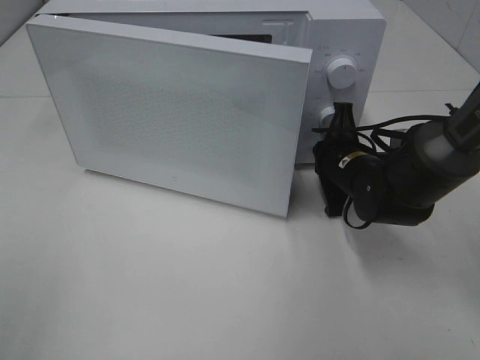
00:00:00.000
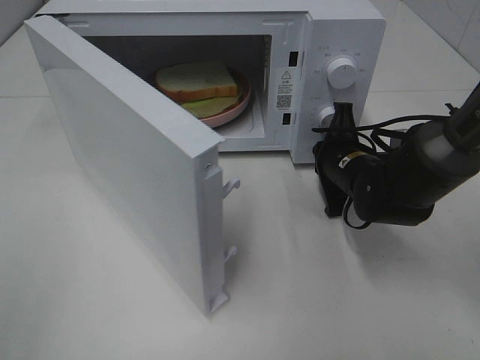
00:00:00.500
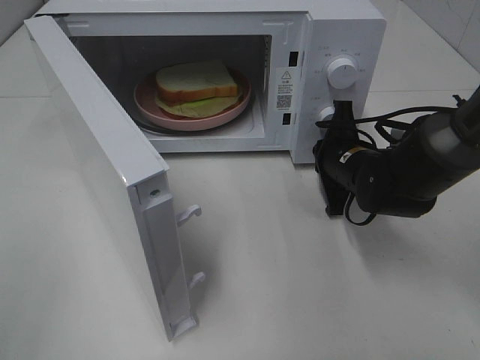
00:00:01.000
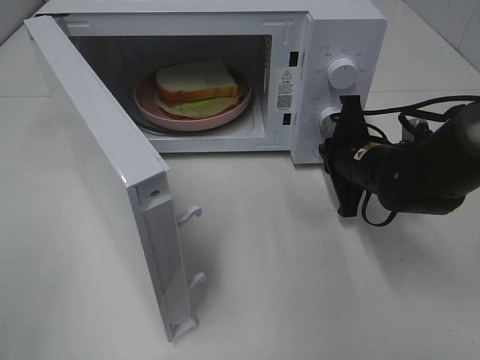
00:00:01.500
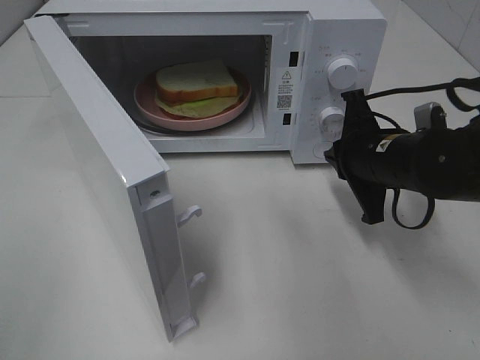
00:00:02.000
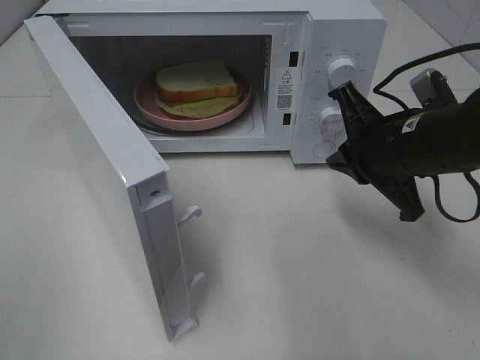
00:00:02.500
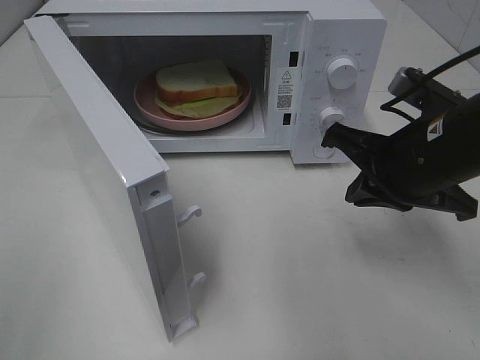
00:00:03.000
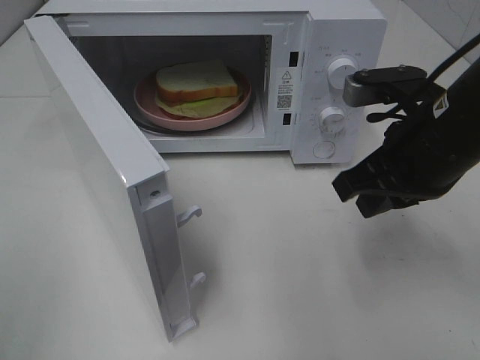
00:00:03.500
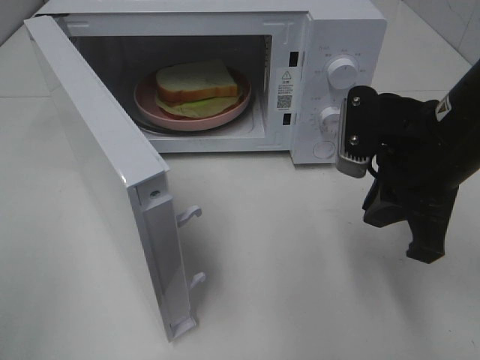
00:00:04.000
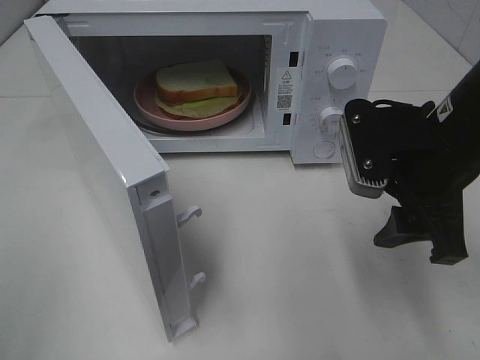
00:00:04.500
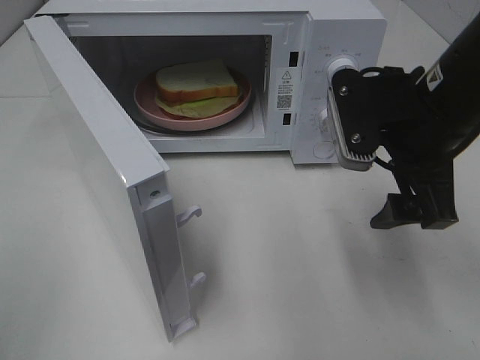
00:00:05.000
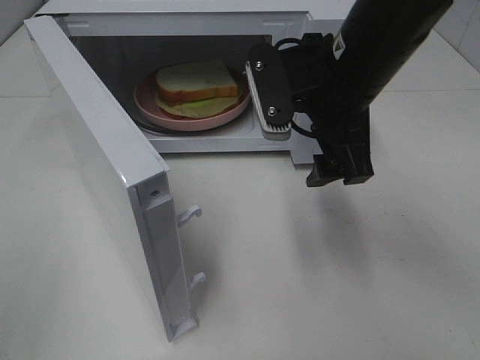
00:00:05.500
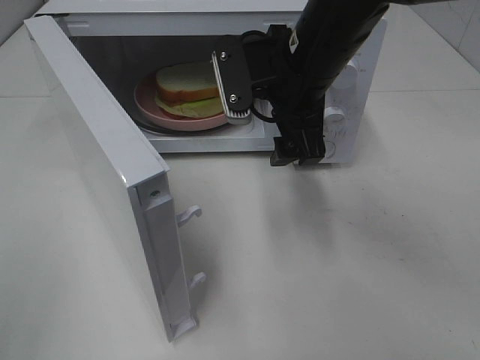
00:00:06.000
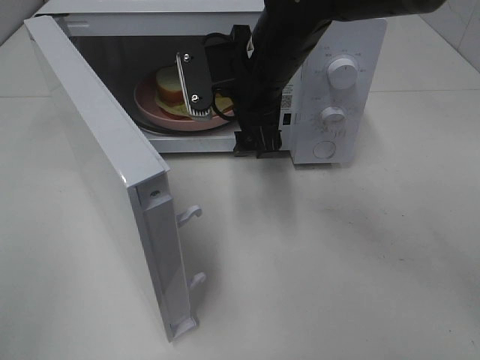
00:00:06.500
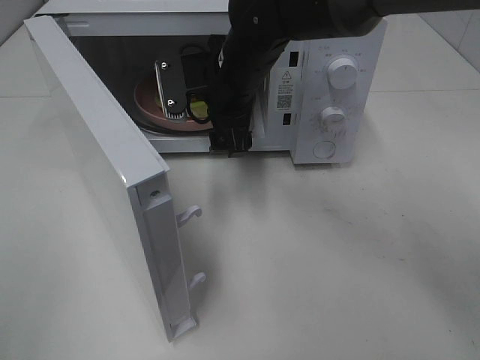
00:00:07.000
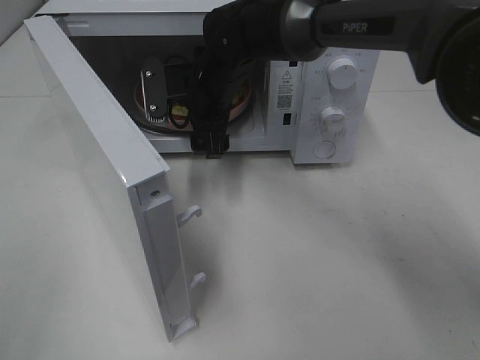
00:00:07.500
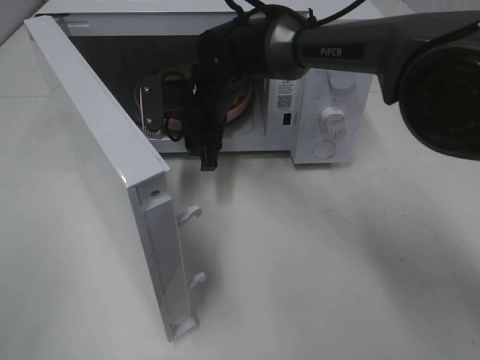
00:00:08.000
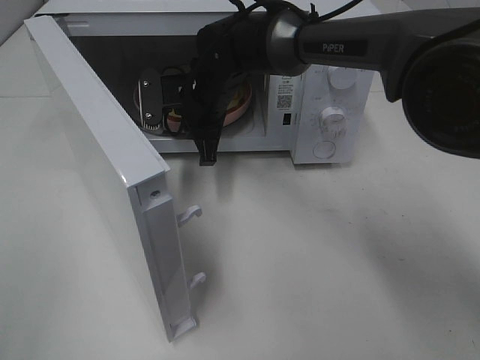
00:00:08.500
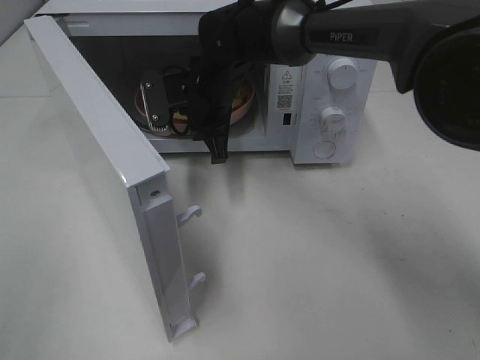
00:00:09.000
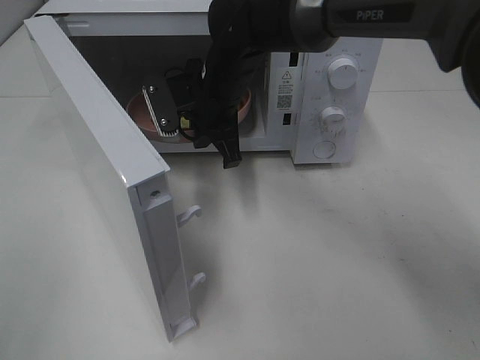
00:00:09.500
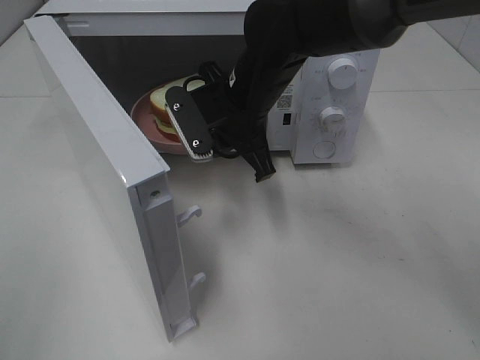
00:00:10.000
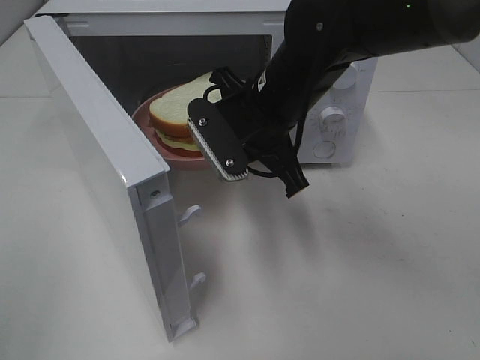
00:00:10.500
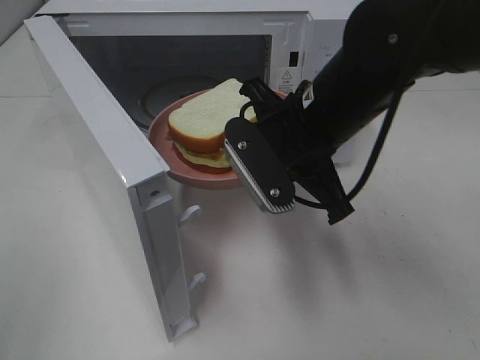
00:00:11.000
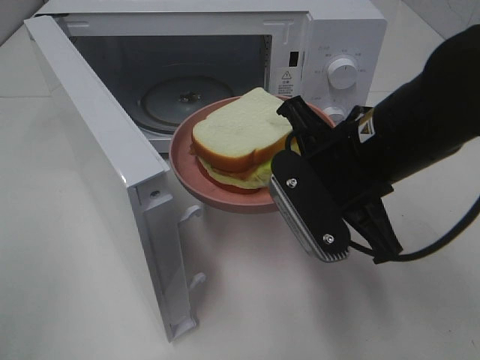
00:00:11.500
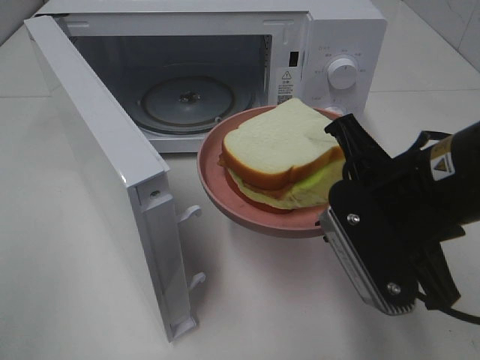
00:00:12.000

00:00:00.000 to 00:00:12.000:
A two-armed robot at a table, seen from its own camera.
Task of the whole recording: Heat Sandwich.
Step, 00:00:02.000 to 00:00:08.000: Right hand: grab the plate with the sandwich.
00:00:00.000 to 00:00:02.000: The right gripper shifts approximately 10 cm upward and backward.
00:00:02.000 to 00:00:04.000: The right gripper goes about 10 cm upward and backward.
00:00:04.000 to 00:00:06.000: The right gripper heads to the left and forward, covering approximately 15 cm, and opens.
00:00:06.000 to 00:00:08.000: The right gripper goes some 15 cm forward, downward and to the left, and closes.
00:00:08.000 to 00:00:10.000: The right gripper goes approximately 5 cm backward, and closes.
00:00:10.000 to 00:00:12.000: The right gripper travels backward and to the right by roughly 20 cm.

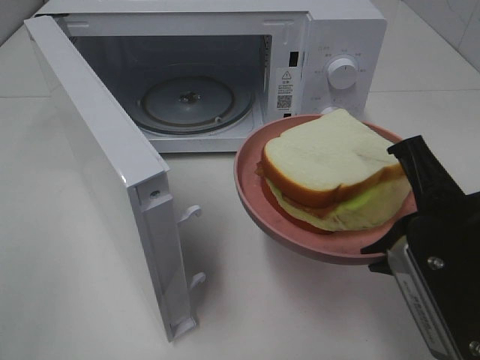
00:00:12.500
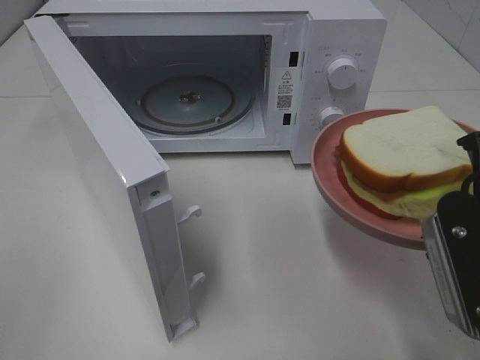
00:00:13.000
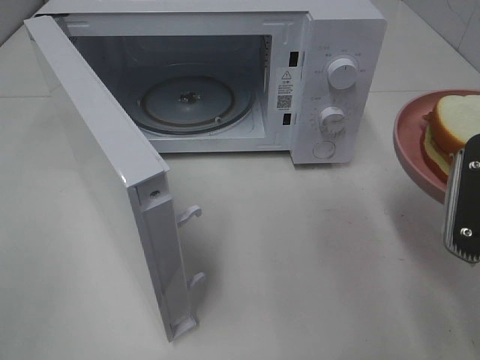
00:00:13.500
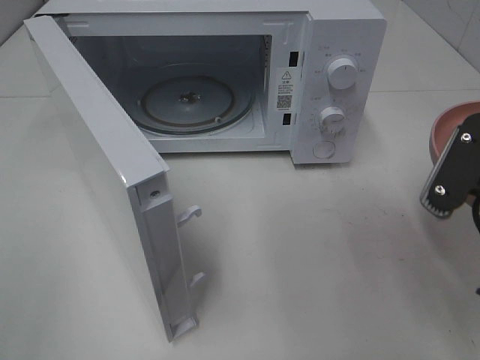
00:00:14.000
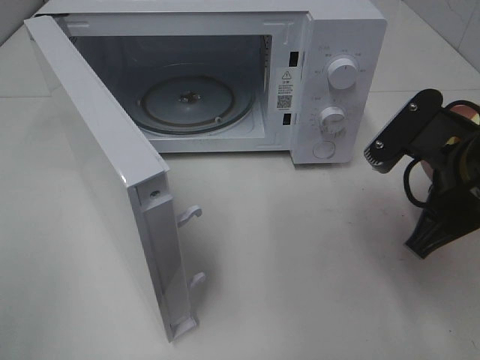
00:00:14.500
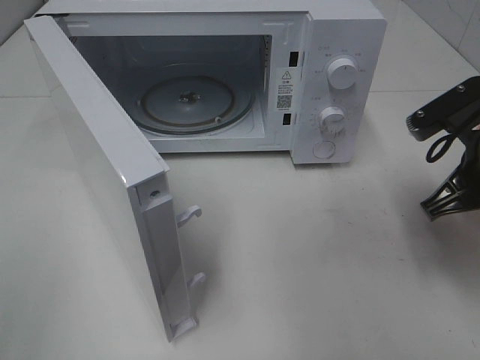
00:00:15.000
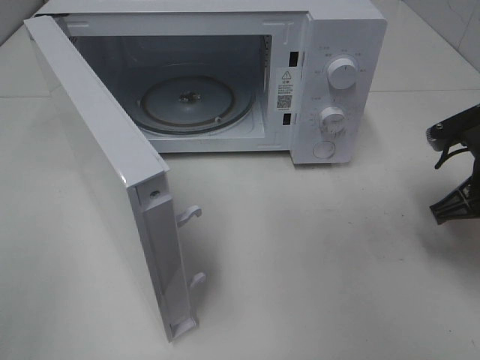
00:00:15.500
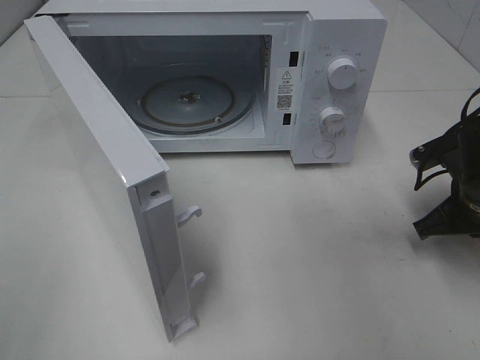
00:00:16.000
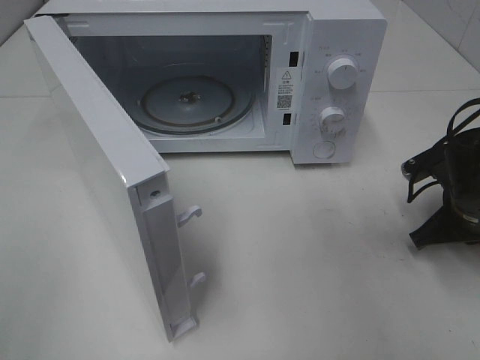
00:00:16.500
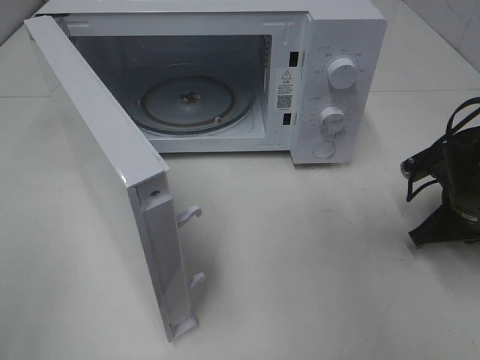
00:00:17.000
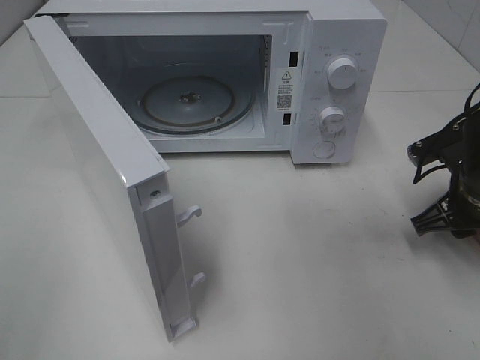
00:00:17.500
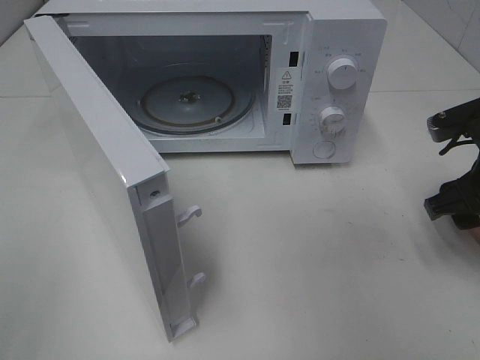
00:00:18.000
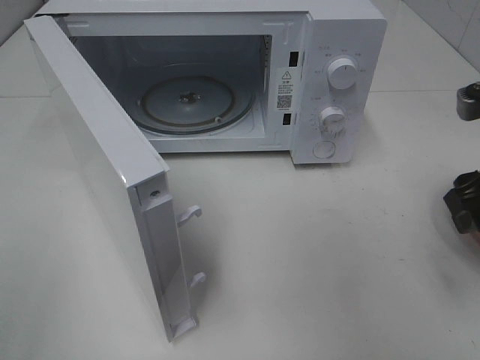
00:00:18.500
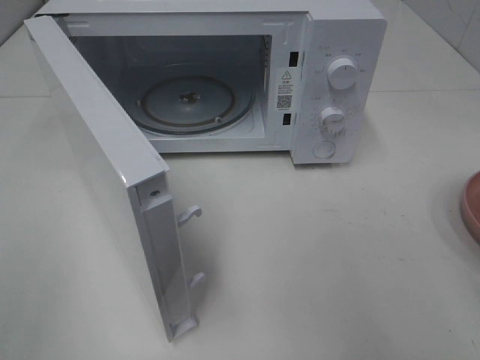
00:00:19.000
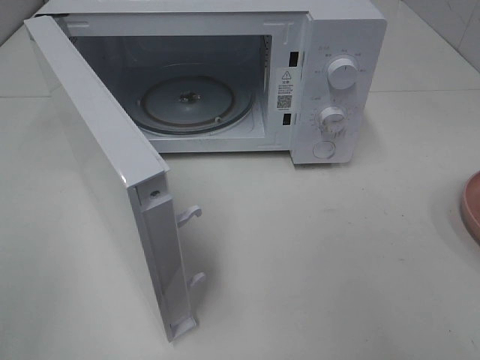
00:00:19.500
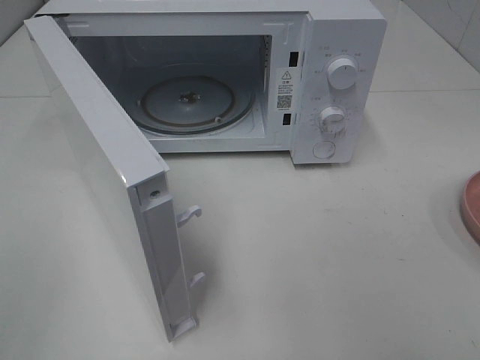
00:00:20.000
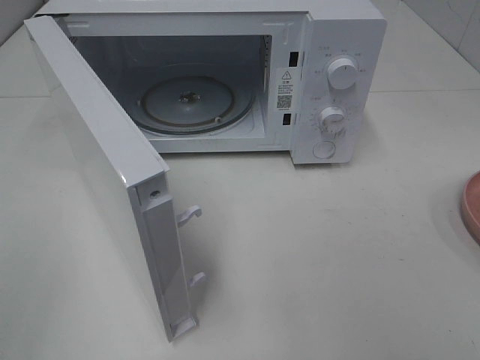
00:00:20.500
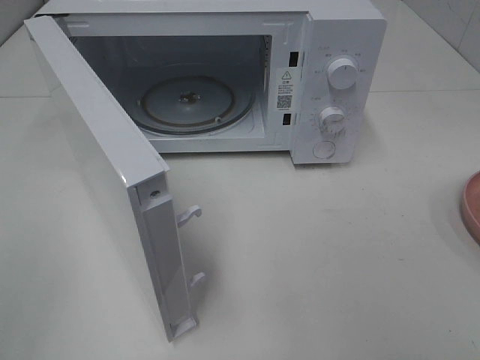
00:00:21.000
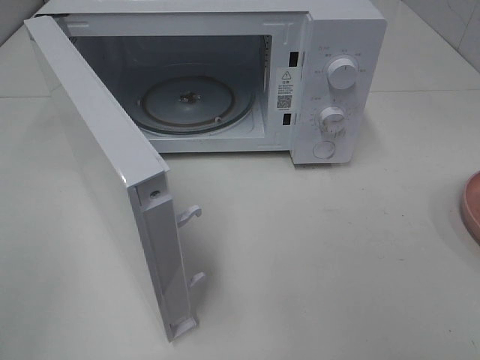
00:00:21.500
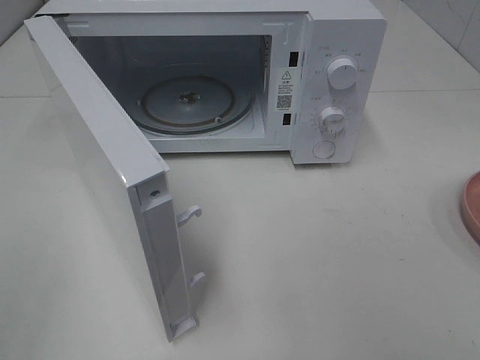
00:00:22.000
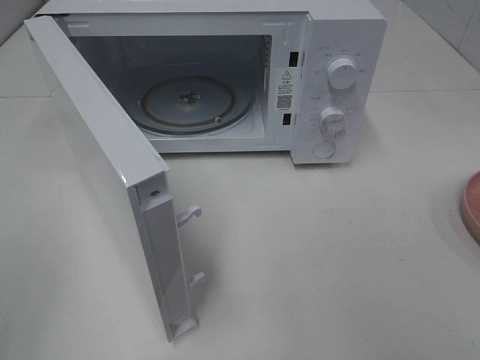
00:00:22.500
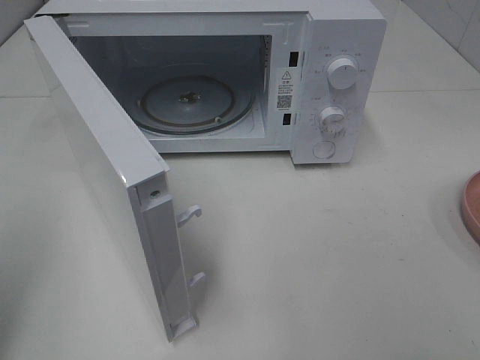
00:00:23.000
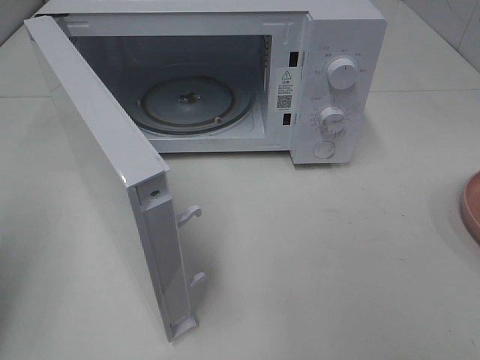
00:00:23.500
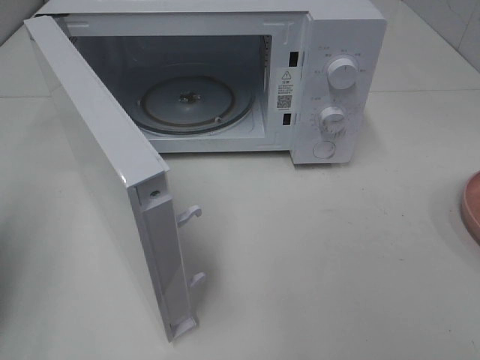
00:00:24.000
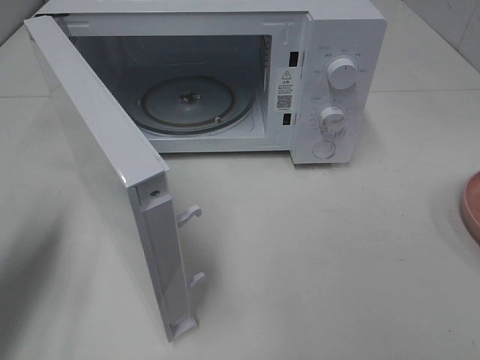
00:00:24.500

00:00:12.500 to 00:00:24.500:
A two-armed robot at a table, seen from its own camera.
Task of the whole recording: Heat Sandwich.
Step, 00:00:12.500 to 00:00:18.000: Right hand: place the plate on the table.
00:00:12.500 to 00:00:14.500: The right gripper moves forward, approximately 5 cm.
00:00:14.500 to 00:00:16.500: The right gripper travels downward, to the right and forward by about 15 cm.
00:00:16.500 to 00:00:18.500: The right gripper shifts about 15 cm upward and backward, and opens its fingers.
00:00:18.500 to 00:00:20.500: The right gripper is displaced backward by roughly 20 cm.
00:00:22.500 to 00:00:24.500: The left gripper is displaced forward and downward by roughly 20 cm, and closes up.

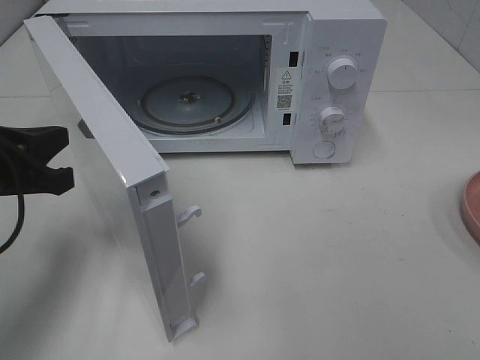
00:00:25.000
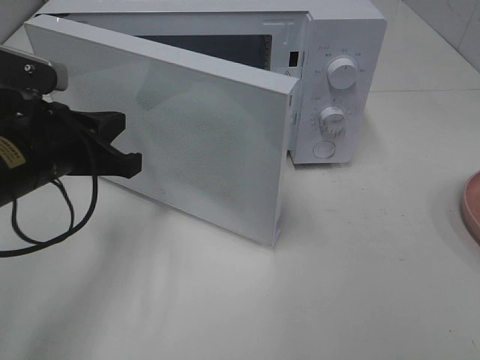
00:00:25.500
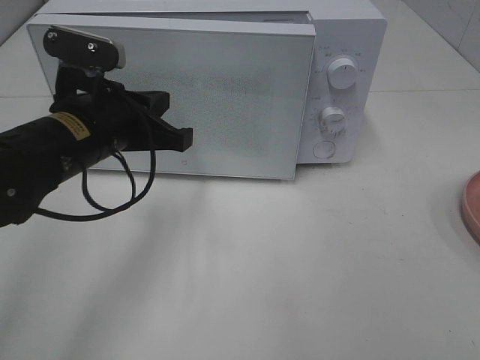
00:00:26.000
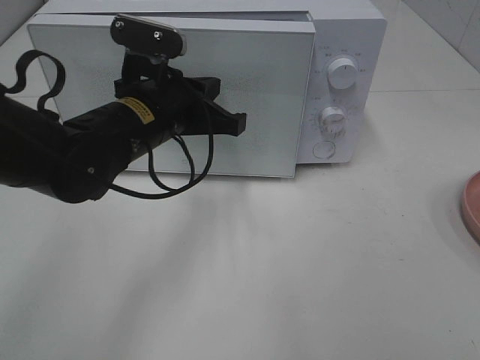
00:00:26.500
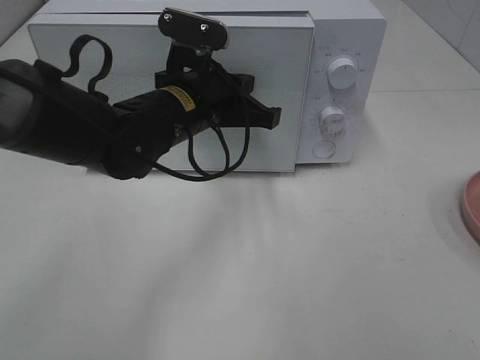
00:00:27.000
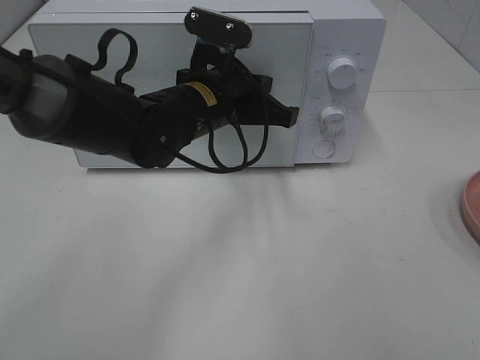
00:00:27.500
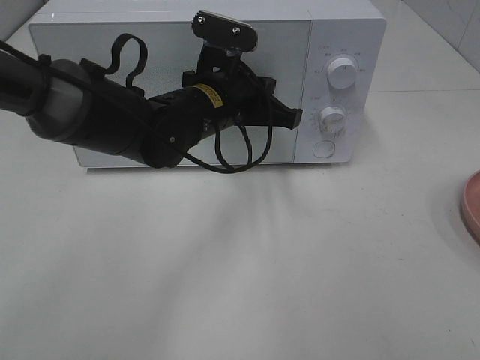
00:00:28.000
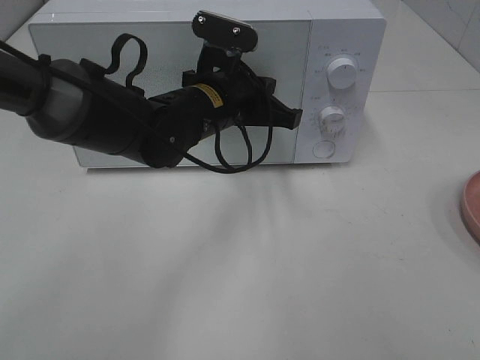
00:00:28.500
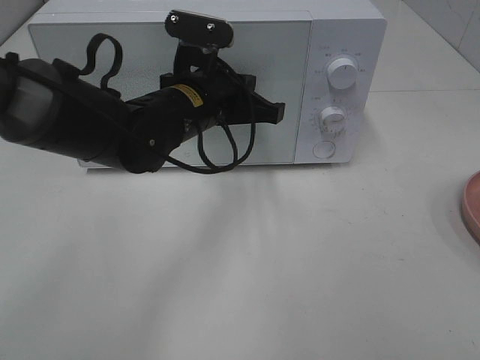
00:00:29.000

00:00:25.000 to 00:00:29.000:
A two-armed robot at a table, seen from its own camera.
Task of the whole recording: Heat Sandwich.
00:00:25.000 to 00:00:27.000: The left gripper heads to the right and forward, covering some 20 cm.
00:00:27.000 to 00:00:29.000: There are only small adjustments of the grippers.
